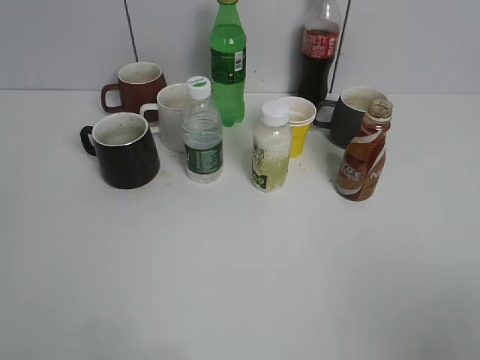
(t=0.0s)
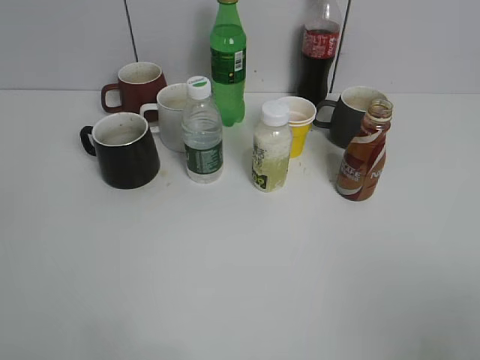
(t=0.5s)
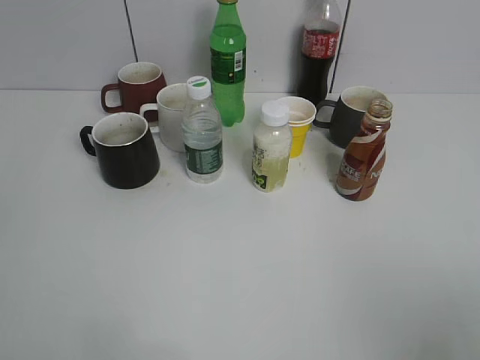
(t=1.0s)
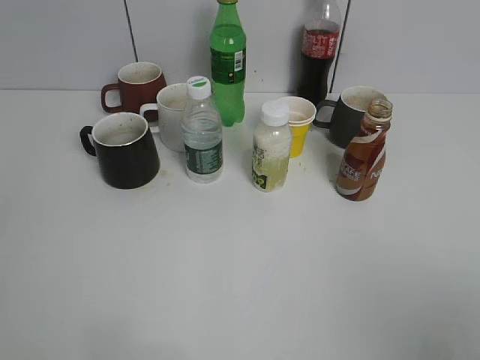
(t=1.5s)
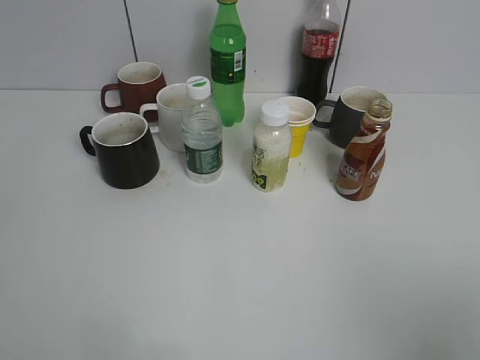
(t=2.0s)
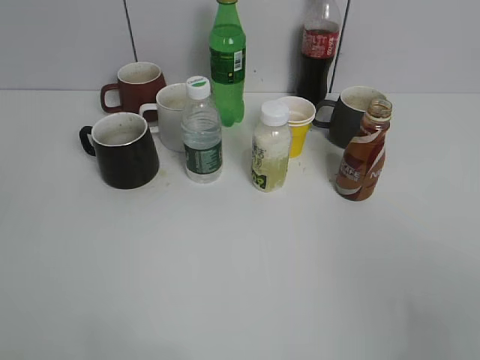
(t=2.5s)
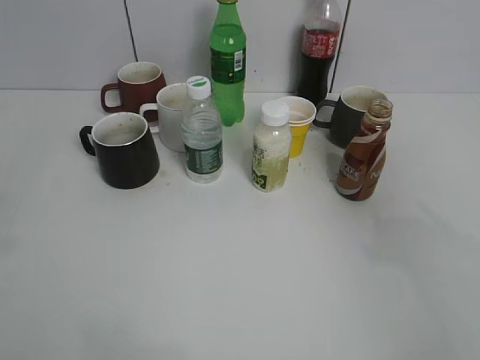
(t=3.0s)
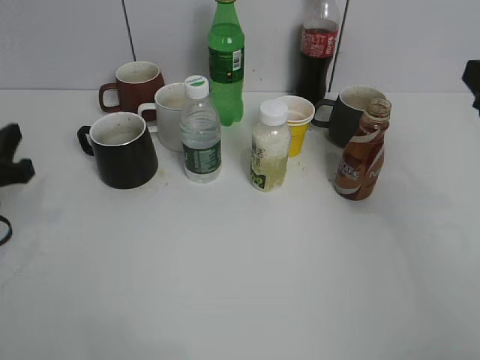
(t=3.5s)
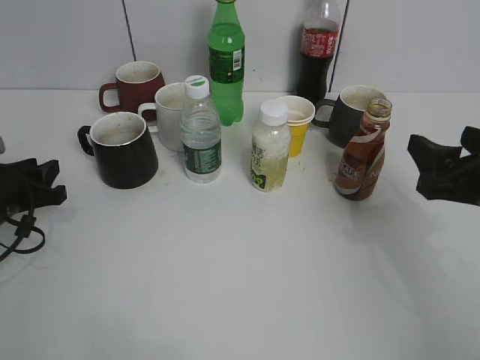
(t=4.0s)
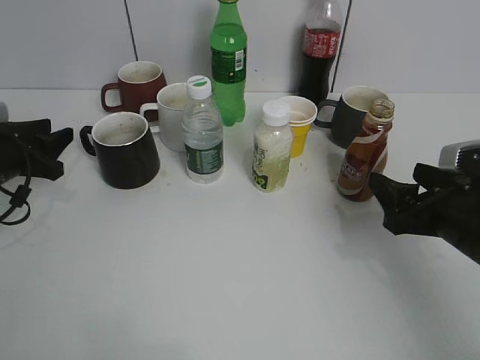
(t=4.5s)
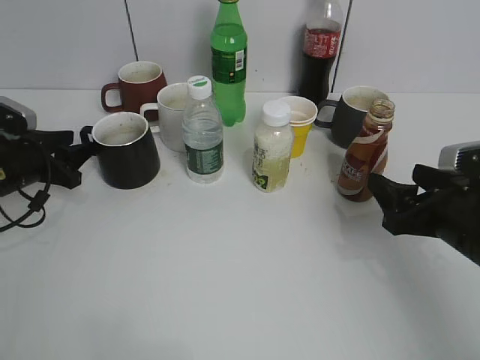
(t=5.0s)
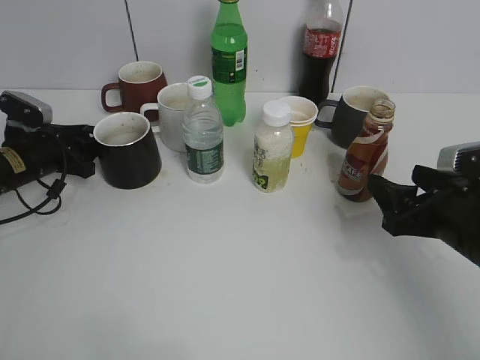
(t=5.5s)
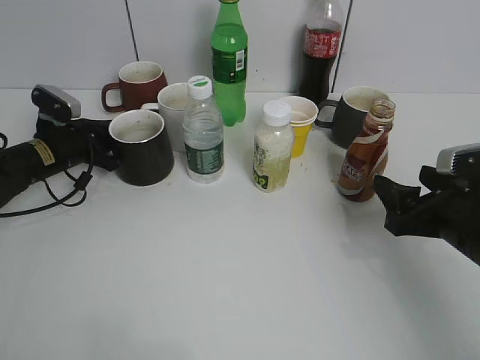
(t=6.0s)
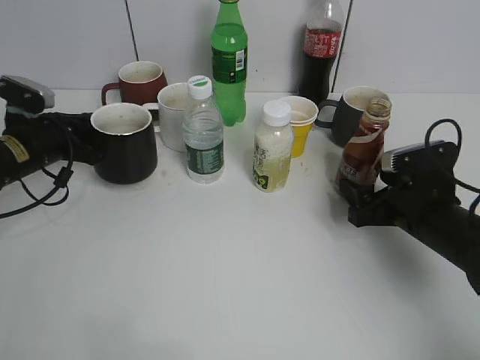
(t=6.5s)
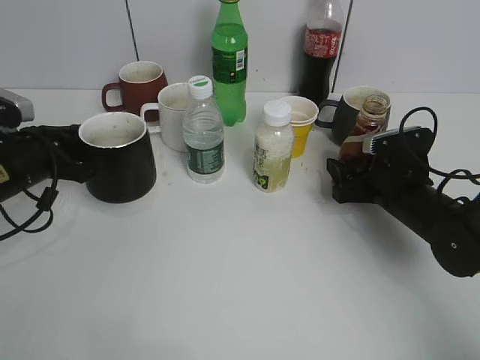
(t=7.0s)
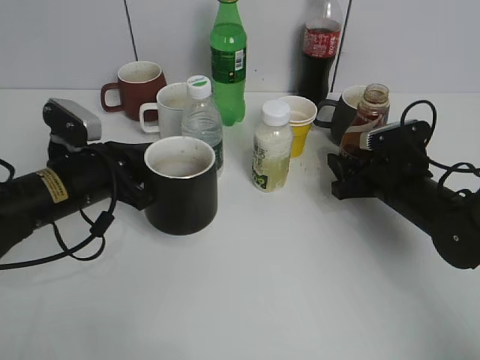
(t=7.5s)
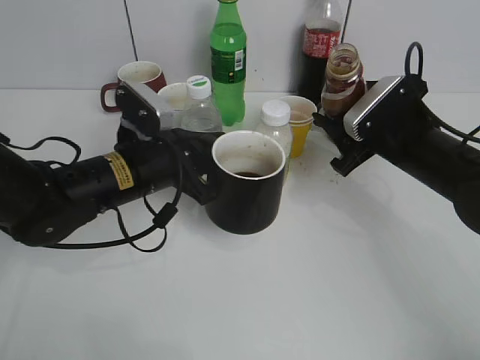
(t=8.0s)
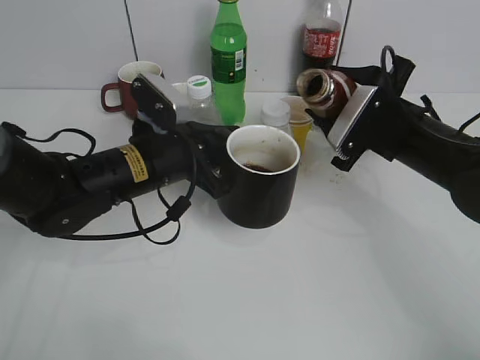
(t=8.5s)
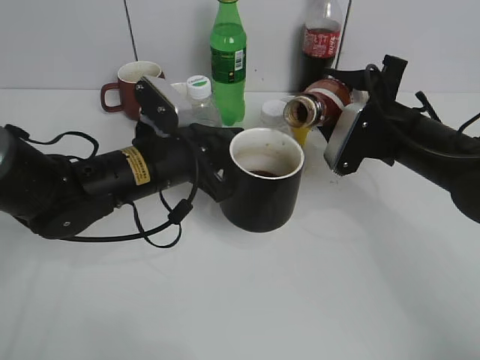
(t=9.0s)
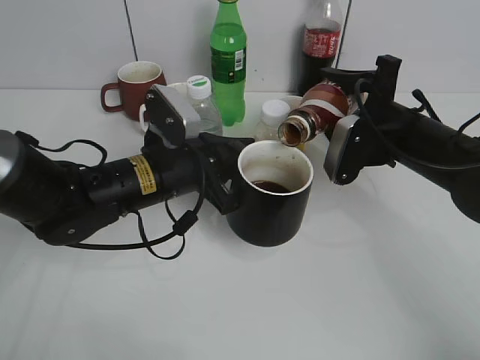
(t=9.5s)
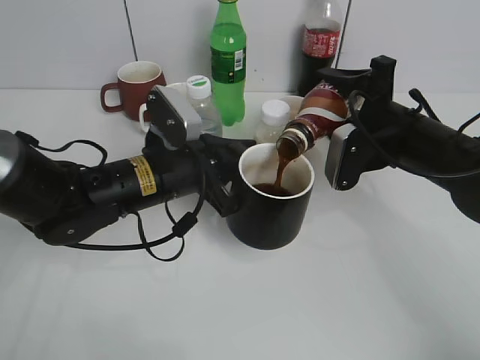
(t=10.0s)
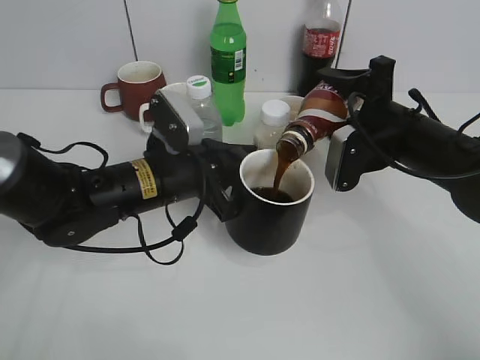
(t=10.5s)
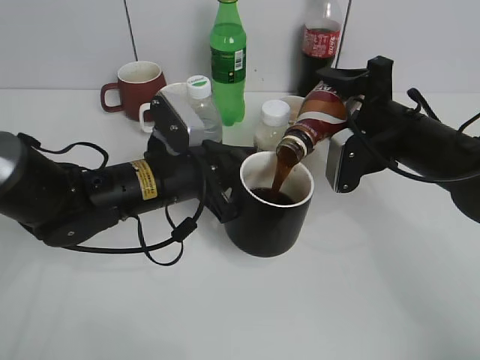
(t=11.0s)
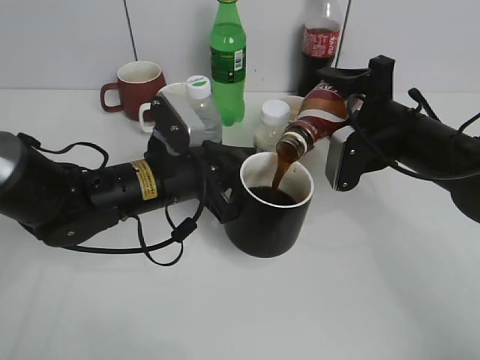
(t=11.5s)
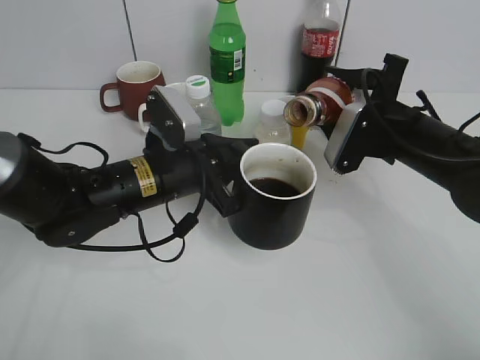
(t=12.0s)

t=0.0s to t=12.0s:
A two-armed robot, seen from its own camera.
Step, t=2.5s to t=5.5s: Grasp the black cup with left gripper.
Step, t=6.5s to t=7.0s: Lift the black cup with left gripper.
t=2.0s to t=4.0s: Both grippers travel together forward and downward, approximately 30 cm.
t=4.0s to t=6.0s: The right gripper is displaced downward by approximately 5 cm; the left gripper shifts roughly 15 cm forward, and closes.
t=6.0s to t=8.0s: The left gripper is displaced to the right, backward and upward by approximately 20 cm. The right gripper heads forward, covering approximately 10 cm, and closes its fingers.
t=10.0s to t=12.0s: The grippers move only a little.

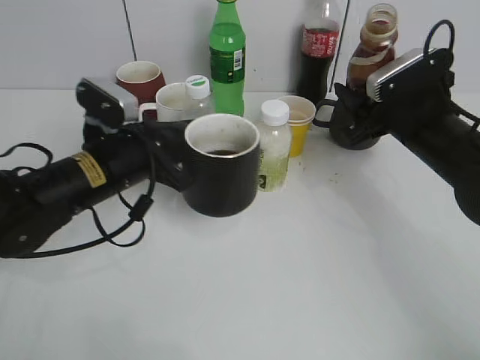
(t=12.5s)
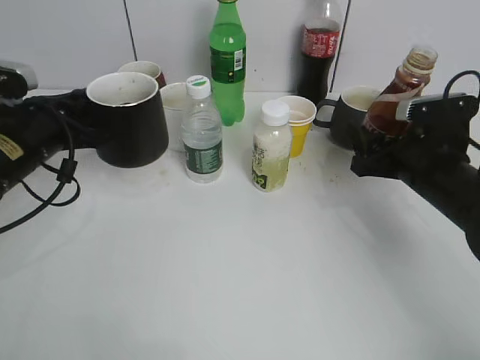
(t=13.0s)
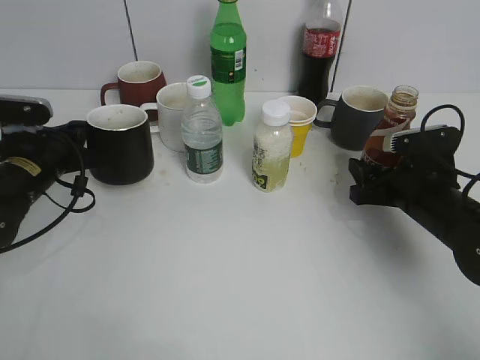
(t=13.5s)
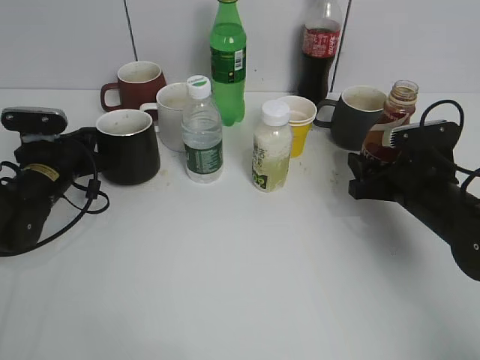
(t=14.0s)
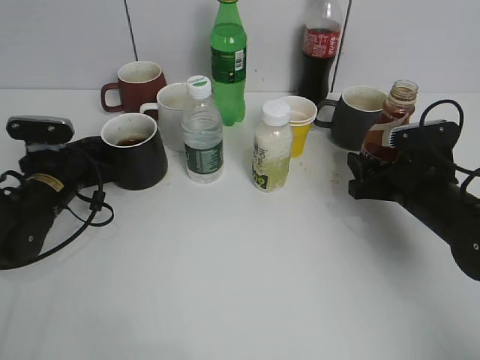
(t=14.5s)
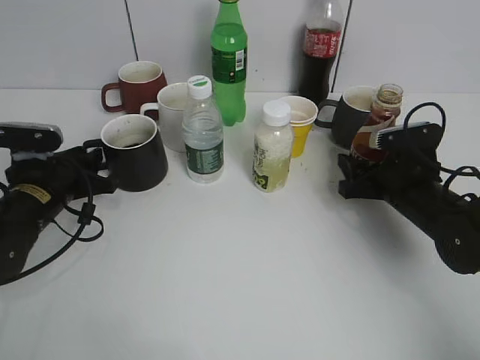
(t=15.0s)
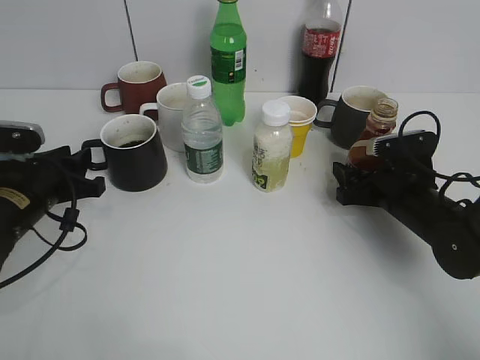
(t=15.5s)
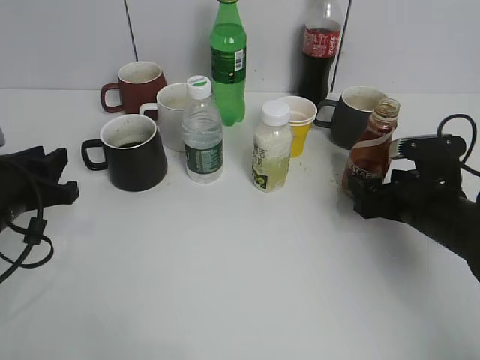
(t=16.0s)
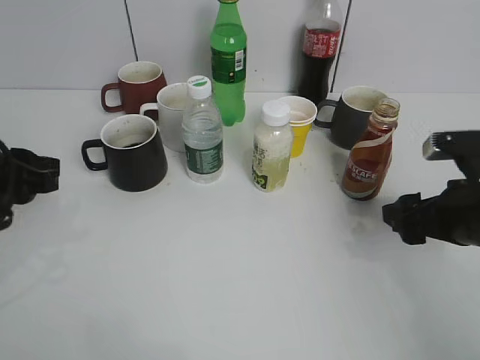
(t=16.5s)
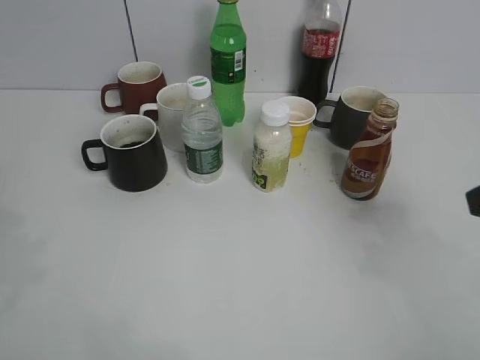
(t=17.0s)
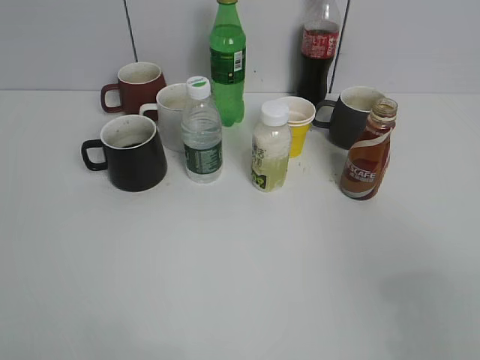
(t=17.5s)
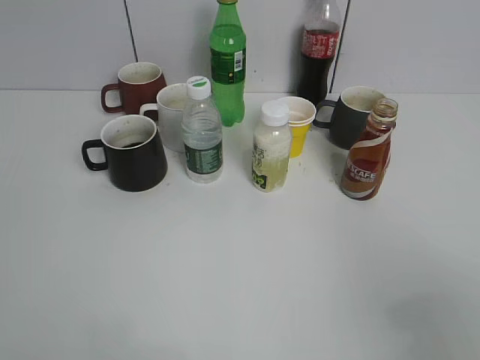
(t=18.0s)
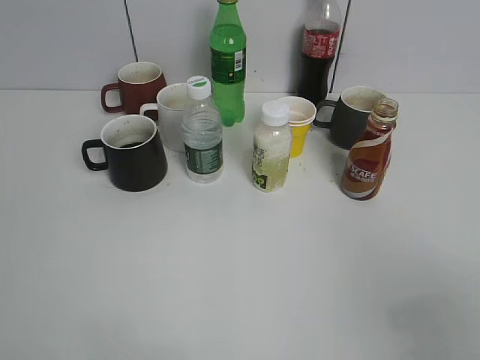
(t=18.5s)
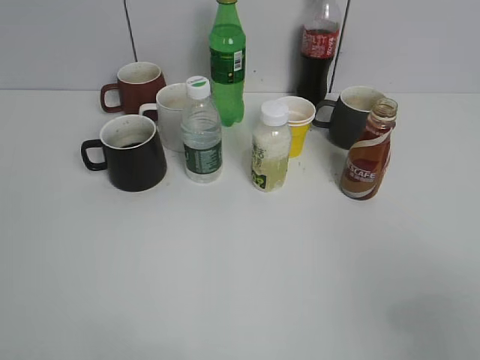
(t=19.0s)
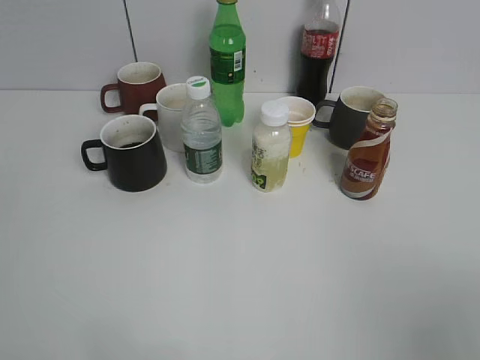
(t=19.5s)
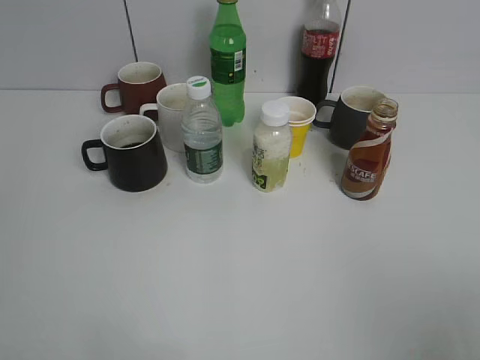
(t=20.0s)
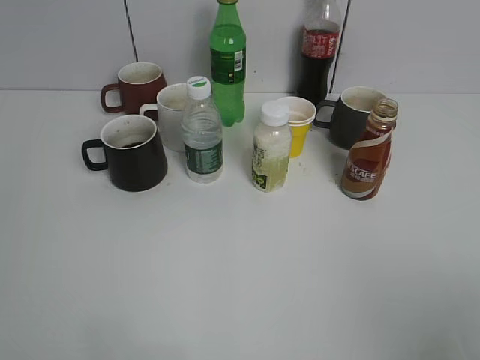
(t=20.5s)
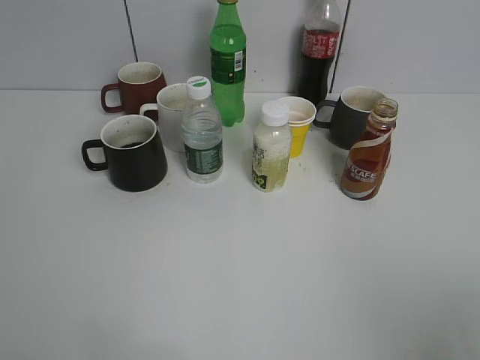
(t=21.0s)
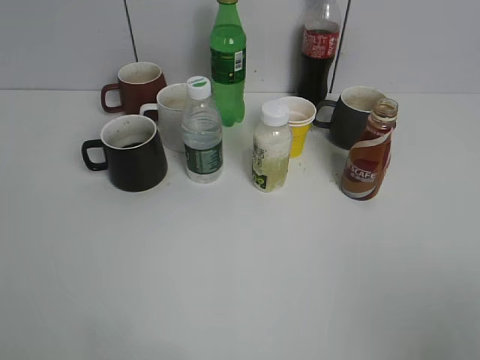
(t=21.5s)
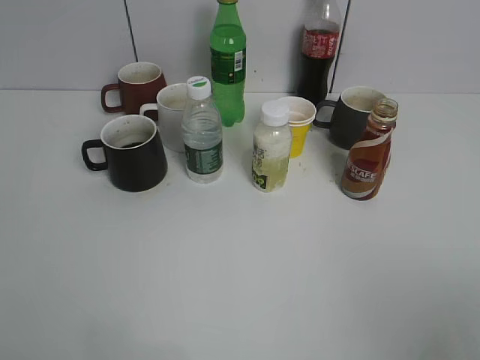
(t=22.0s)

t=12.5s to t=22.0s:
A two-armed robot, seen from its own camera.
Step, t=12.5s to t=15.5s: Place the coffee bottle on the table with right gripper.
t=12.5s to t=14.5s: The right gripper moves downward, about 10 cm, while the left gripper moves to the left, downward and forward, some 15 cm, and opens.
t=14.5s to t=16.5s: The right gripper heads backward, covering roughly 5 cm, and opens up; the left gripper shifts about 15 cm upward and backward.
t=16.5s to t=18.0s: The grippers both shift backward and upward by roughly 25 cm. The right gripper closes its fingers.
t=20.0s to t=22.0s: Neither gripper changes place.

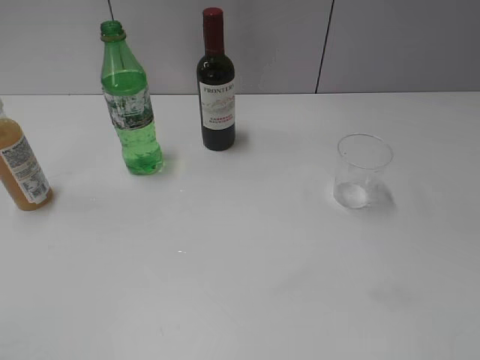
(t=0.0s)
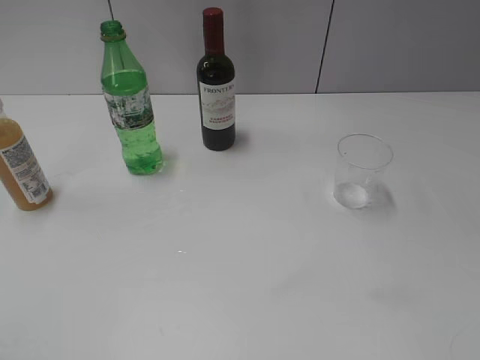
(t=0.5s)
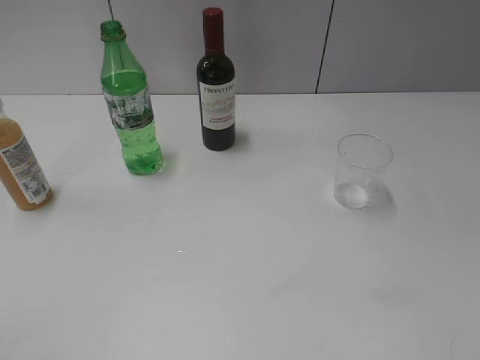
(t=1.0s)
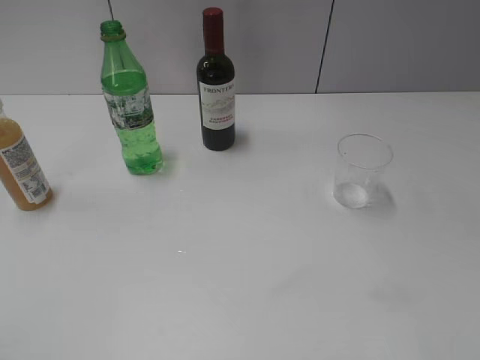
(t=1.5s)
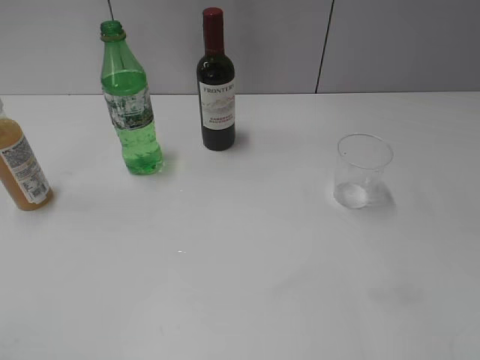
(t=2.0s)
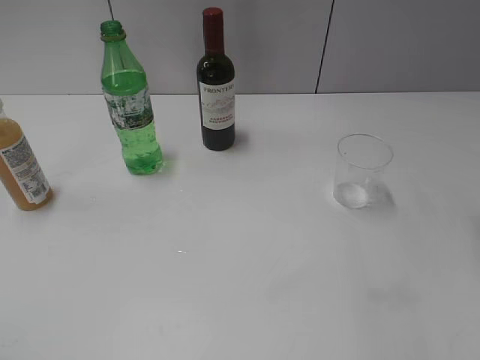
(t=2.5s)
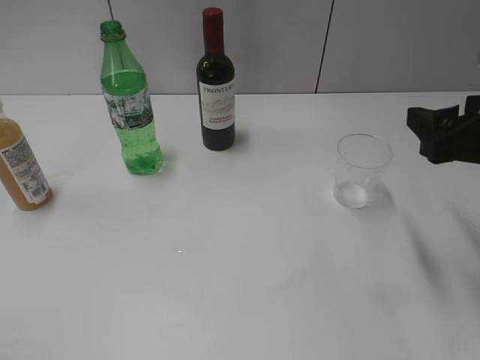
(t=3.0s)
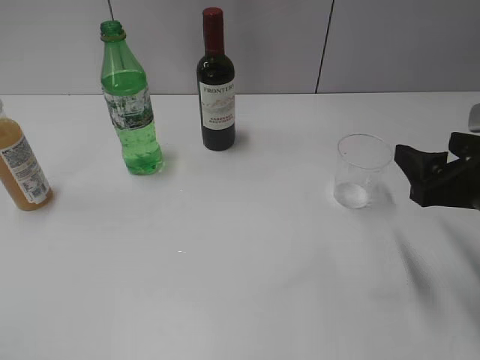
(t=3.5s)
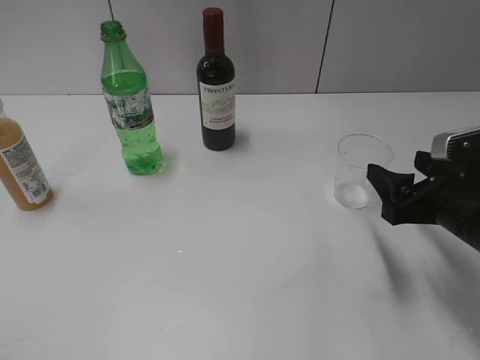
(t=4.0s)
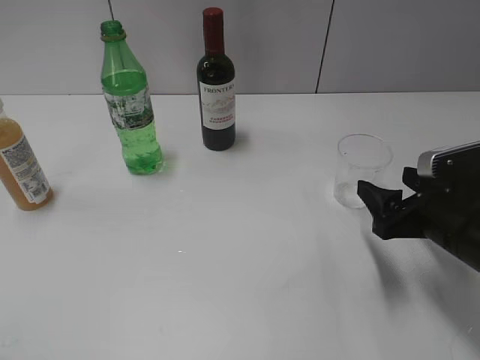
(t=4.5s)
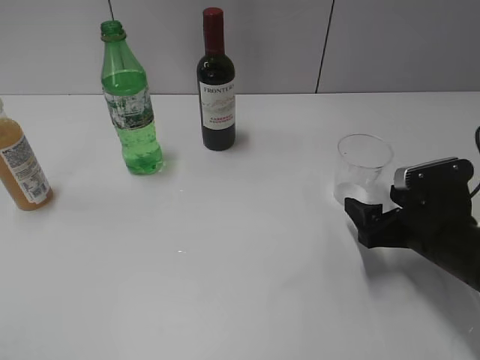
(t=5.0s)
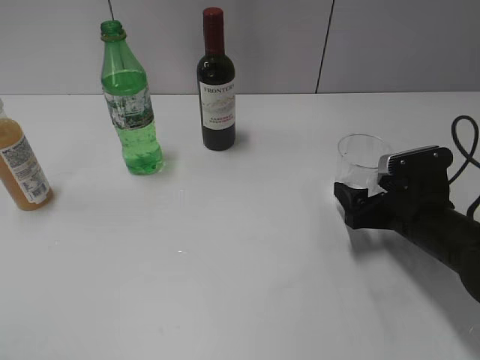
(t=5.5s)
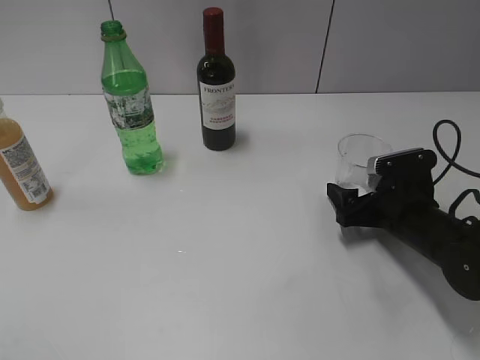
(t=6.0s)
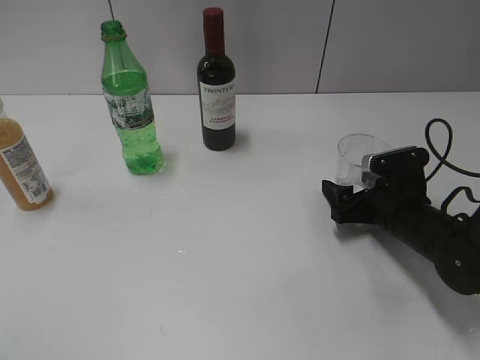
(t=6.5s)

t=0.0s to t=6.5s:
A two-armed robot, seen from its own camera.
t=2.0s to t=4.5s: The right gripper goes approximately 25 cm downward and forward.
t=4.5s to t=6.5s: The right gripper goes approximately 10 cm forward and downward.
